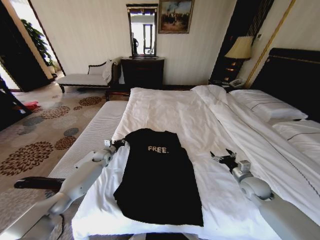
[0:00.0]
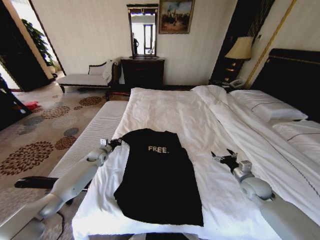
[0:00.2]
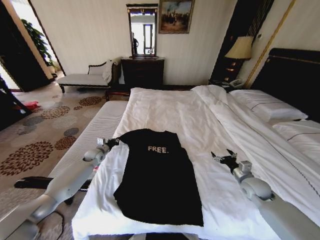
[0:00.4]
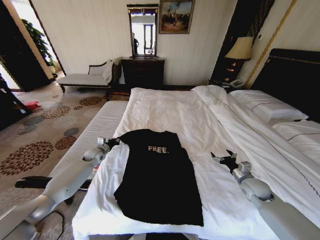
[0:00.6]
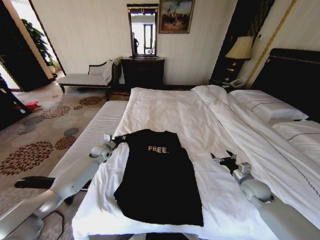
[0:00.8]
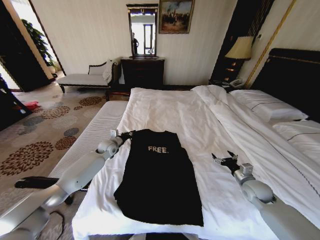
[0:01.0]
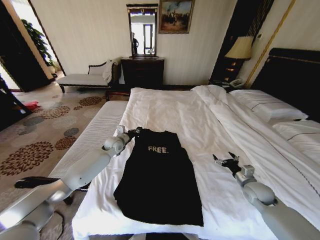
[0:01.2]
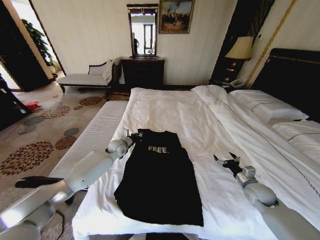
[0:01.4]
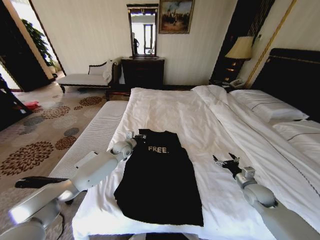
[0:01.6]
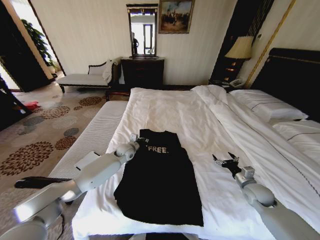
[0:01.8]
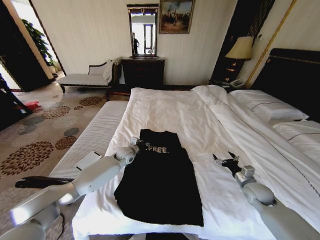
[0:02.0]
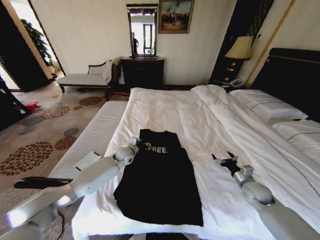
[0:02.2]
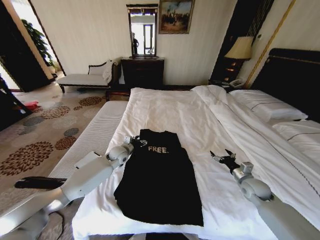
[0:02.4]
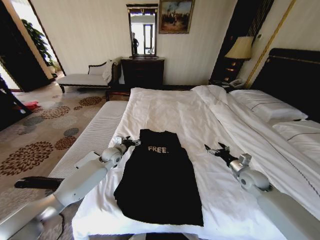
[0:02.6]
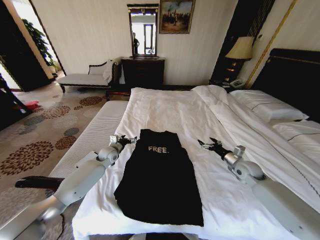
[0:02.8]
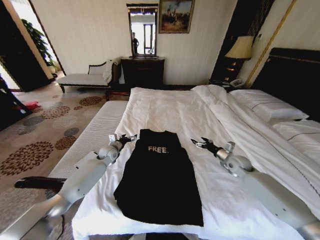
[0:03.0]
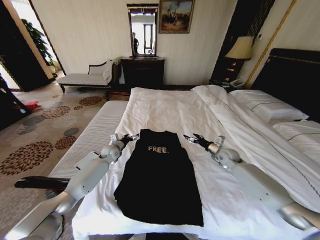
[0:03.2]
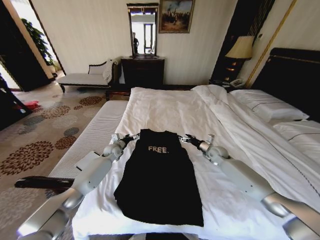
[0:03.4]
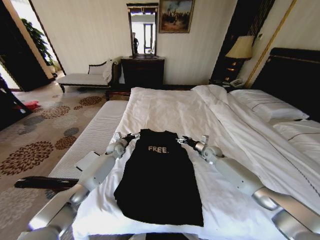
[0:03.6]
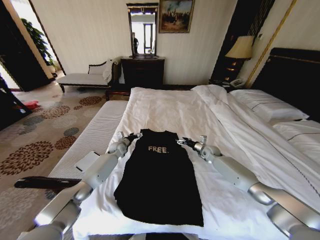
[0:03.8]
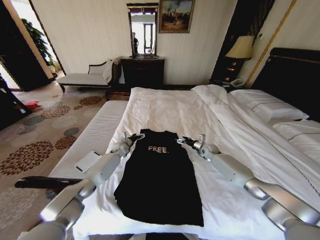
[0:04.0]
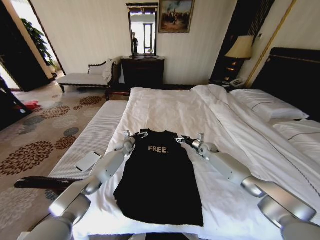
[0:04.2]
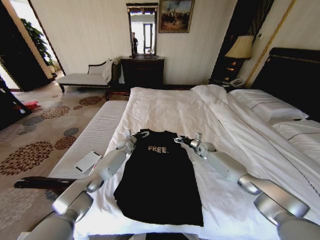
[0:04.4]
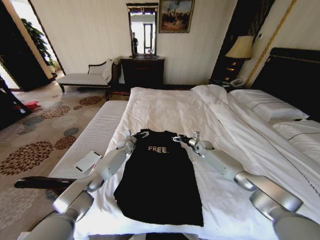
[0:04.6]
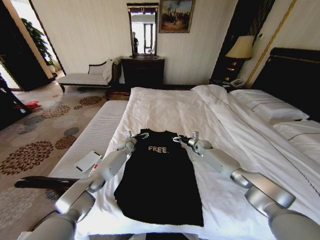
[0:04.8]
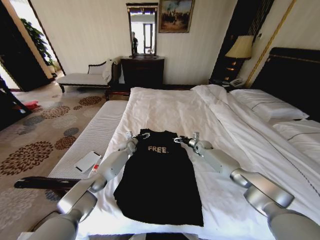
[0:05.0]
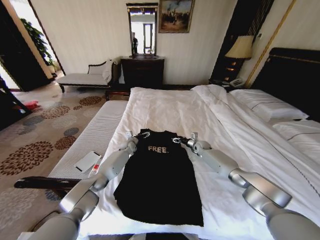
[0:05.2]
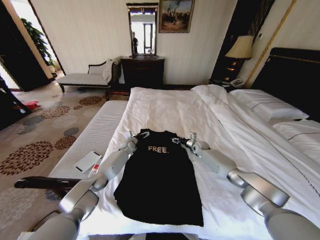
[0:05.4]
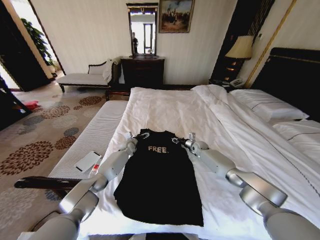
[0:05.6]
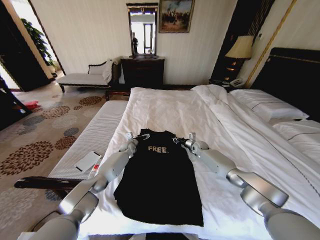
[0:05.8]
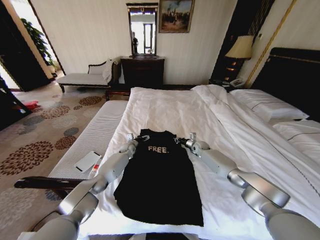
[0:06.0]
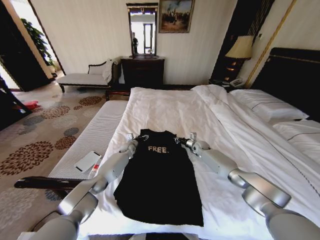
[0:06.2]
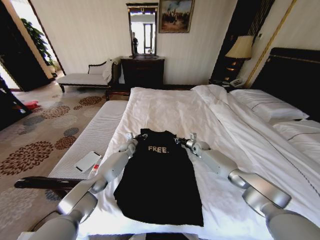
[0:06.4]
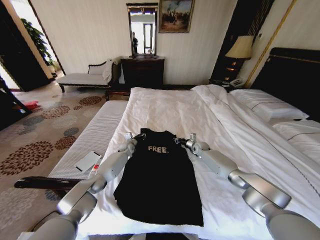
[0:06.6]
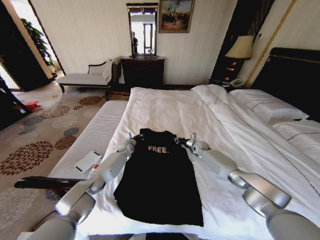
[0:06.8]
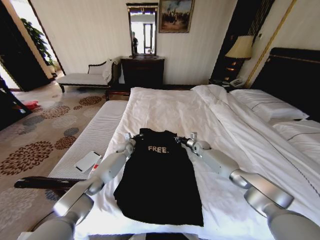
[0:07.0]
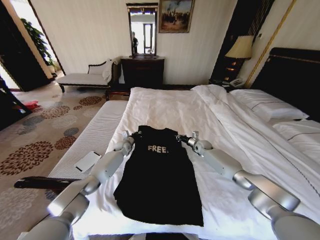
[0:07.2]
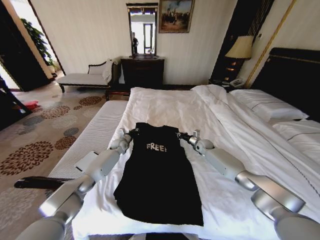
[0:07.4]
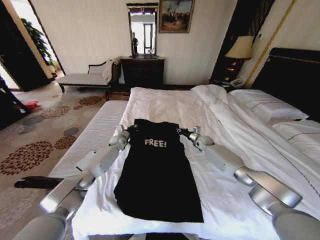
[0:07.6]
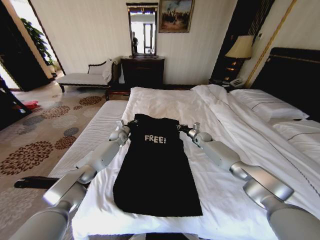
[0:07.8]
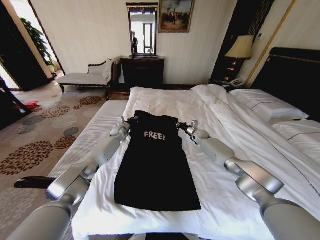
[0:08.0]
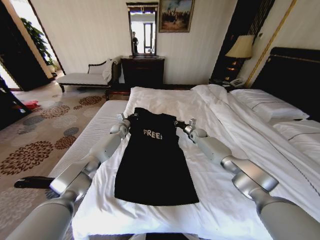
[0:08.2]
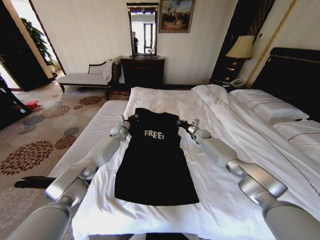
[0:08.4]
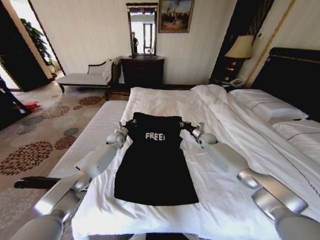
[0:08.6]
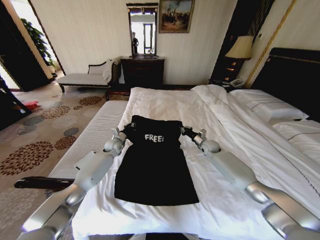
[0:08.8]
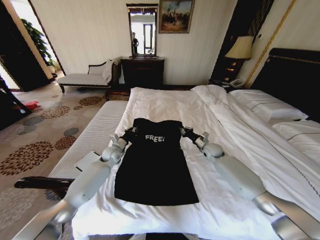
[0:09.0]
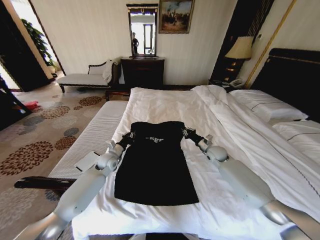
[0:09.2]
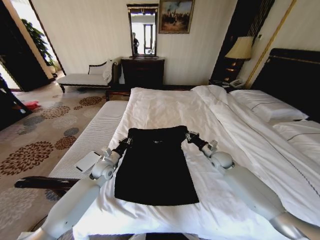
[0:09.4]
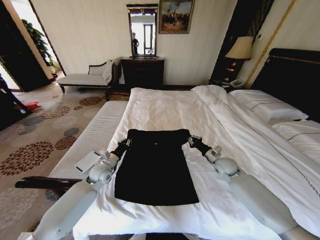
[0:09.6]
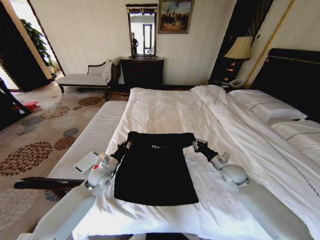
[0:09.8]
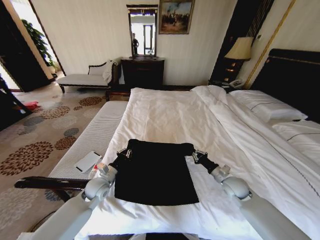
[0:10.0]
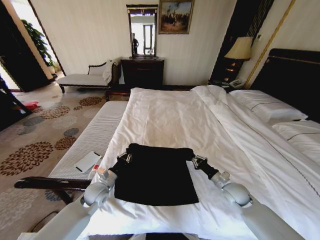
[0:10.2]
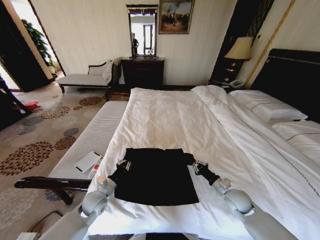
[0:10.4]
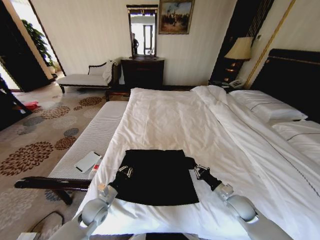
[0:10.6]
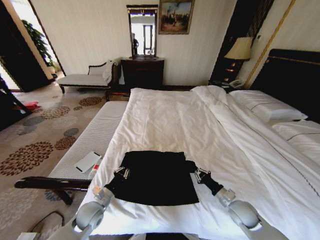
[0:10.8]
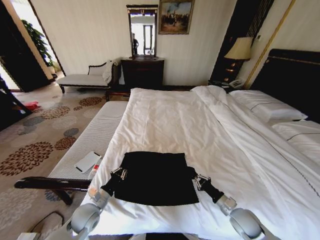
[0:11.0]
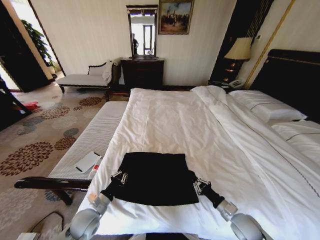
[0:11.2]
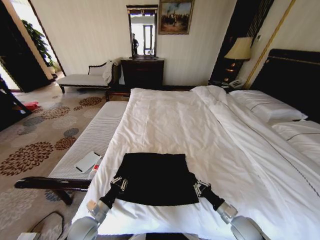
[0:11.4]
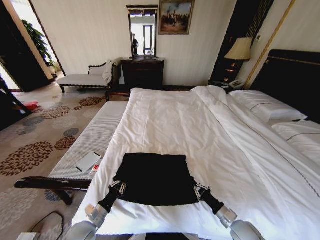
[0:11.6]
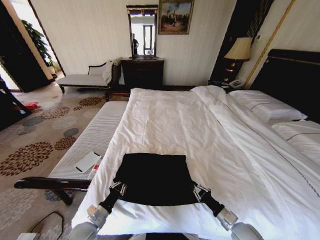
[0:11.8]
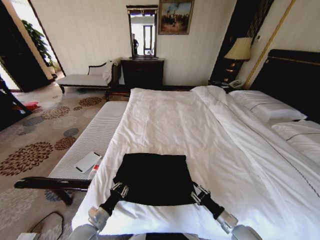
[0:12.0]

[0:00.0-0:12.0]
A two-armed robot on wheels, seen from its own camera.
Task of the whole recording: Fold the clothes on the bed.
0:00.0 to 0:01.6: The left gripper heads to the right and upward, covering roughly 15 cm.
0:01.6 to 0:03.0: The left gripper moves to the left, roughly 10 cm, and opens its fingers. Meanwhile the right gripper travels forward by about 10 cm.
0:03.0 to 0:04.4: The left gripper is displaced forward and to the right by approximately 10 cm; the right gripper travels forward and to the left by approximately 15 cm.
0:04.4 to 0:06.0: The right gripper closes.
0:06.0 to 0:07.6: The left gripper moves upward and to the left, approximately 10 cm, and closes.
0:07.6 to 0:09.0: The two grippers go some 10 cm backward.
0:09.0 to 0:10.4: Both grippers travel together backward, roughly 25 cm.
0:10.4 to 0:12.0: The left gripper moves backward, roughly 10 cm. Meanwhile the right gripper travels backward and downward by approximately 15 cm.

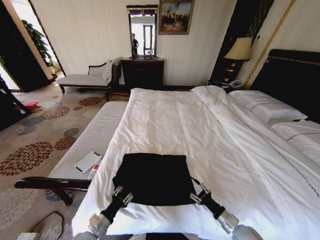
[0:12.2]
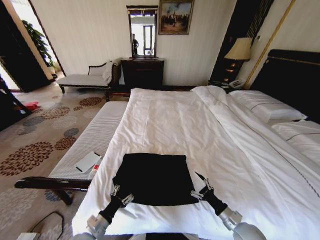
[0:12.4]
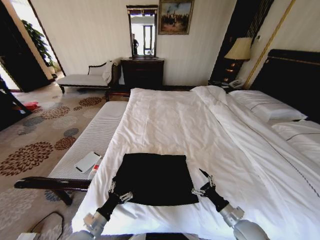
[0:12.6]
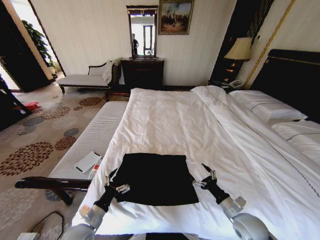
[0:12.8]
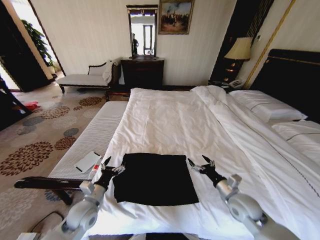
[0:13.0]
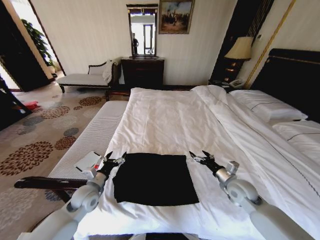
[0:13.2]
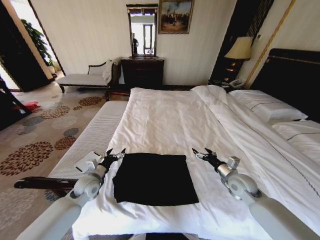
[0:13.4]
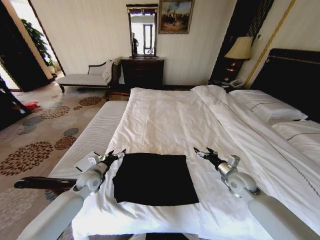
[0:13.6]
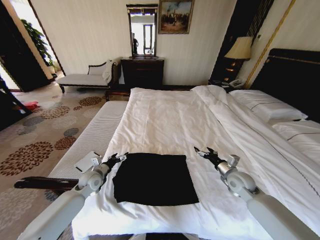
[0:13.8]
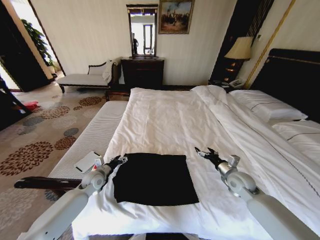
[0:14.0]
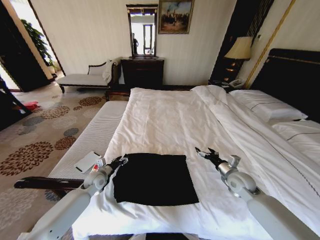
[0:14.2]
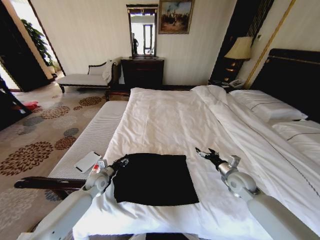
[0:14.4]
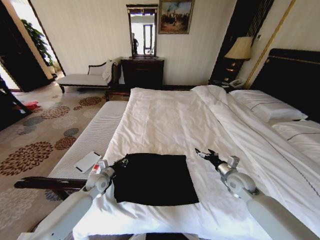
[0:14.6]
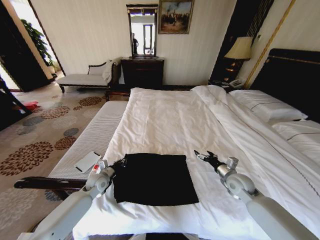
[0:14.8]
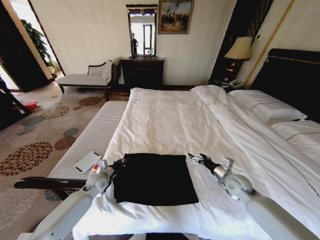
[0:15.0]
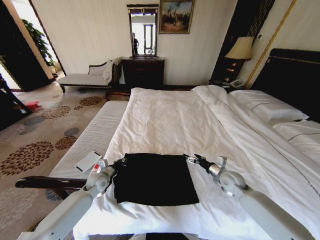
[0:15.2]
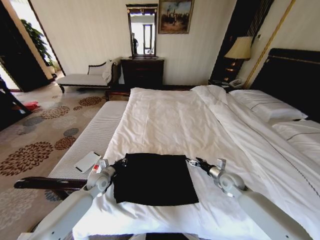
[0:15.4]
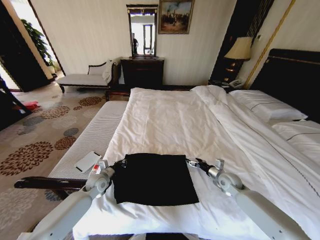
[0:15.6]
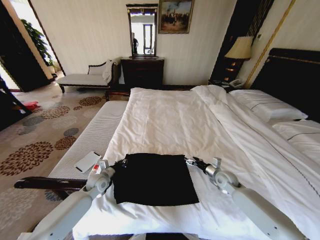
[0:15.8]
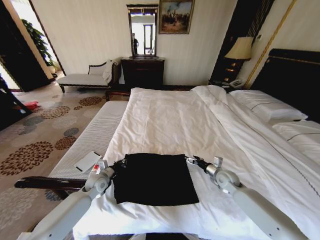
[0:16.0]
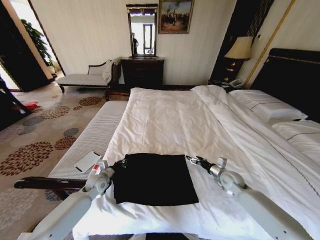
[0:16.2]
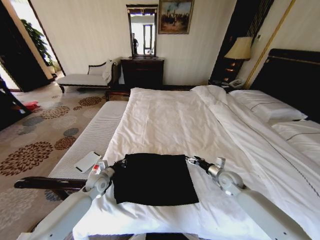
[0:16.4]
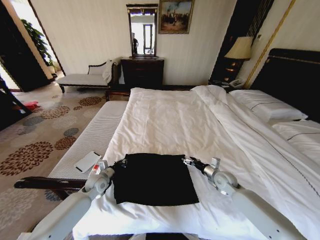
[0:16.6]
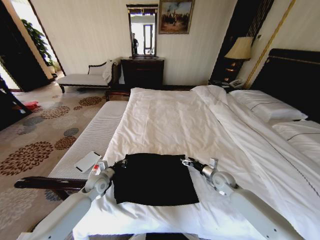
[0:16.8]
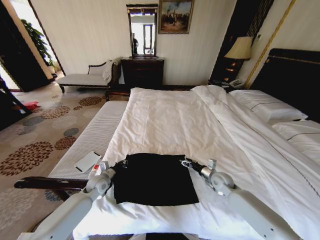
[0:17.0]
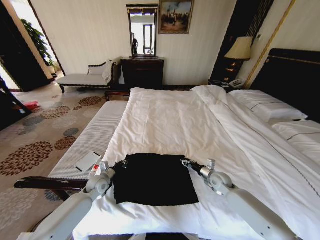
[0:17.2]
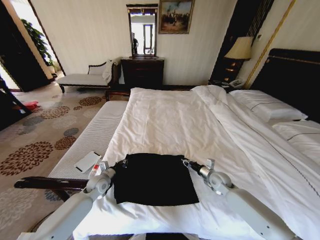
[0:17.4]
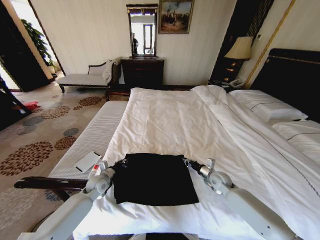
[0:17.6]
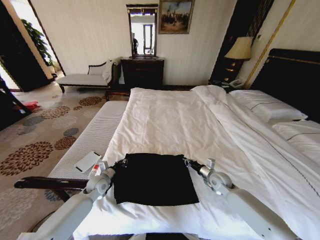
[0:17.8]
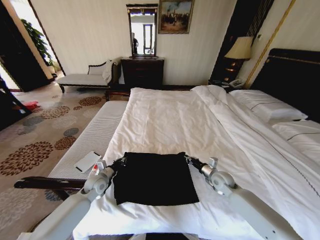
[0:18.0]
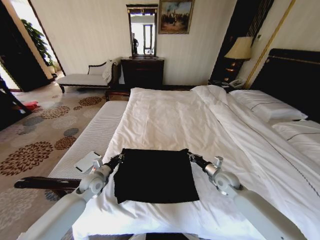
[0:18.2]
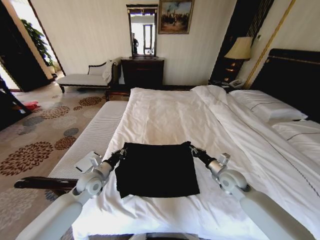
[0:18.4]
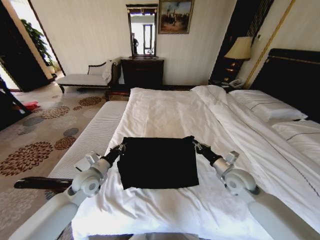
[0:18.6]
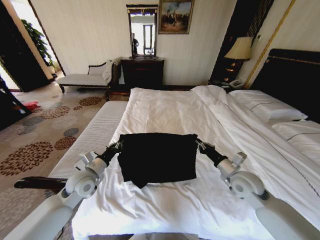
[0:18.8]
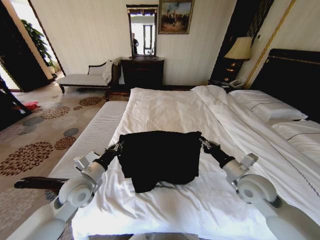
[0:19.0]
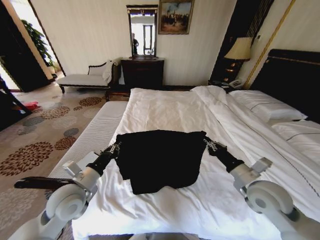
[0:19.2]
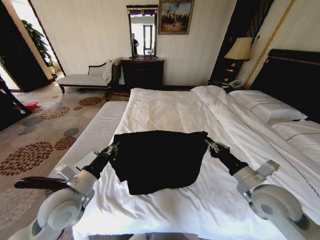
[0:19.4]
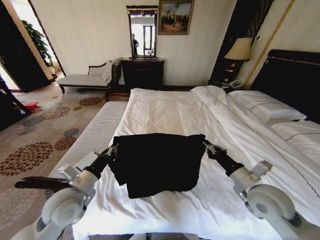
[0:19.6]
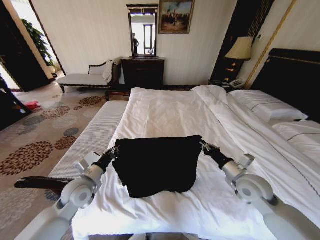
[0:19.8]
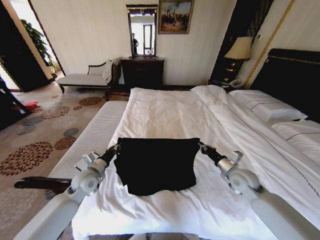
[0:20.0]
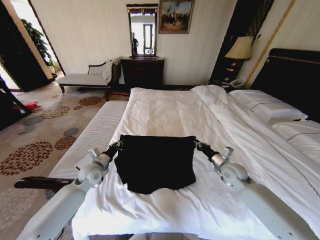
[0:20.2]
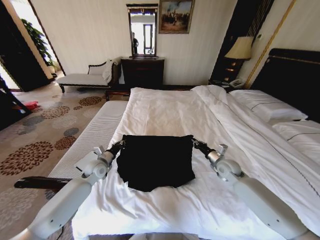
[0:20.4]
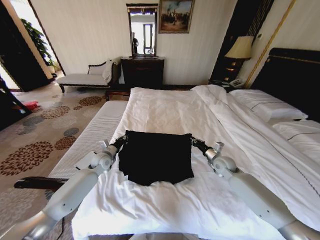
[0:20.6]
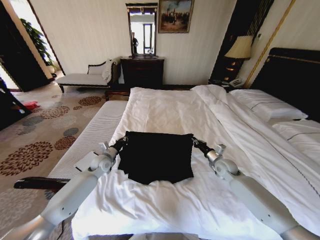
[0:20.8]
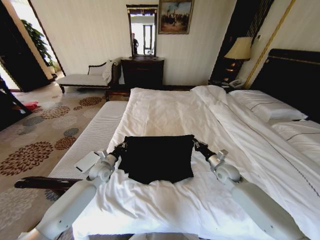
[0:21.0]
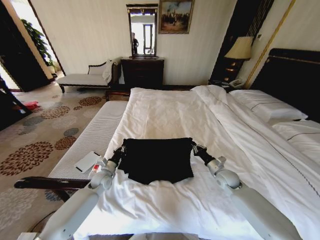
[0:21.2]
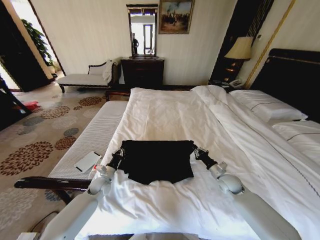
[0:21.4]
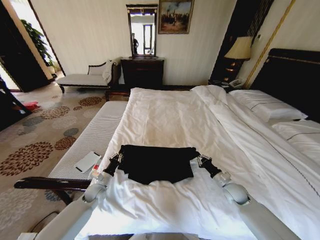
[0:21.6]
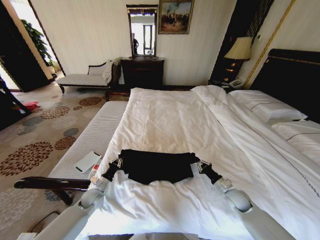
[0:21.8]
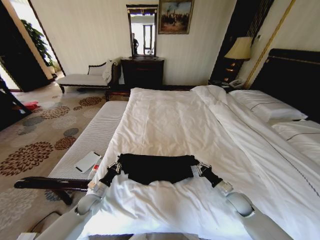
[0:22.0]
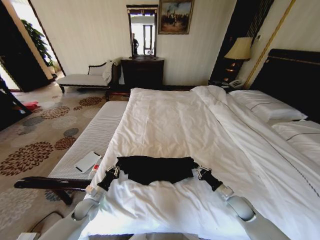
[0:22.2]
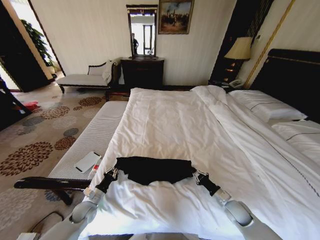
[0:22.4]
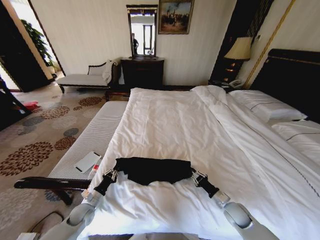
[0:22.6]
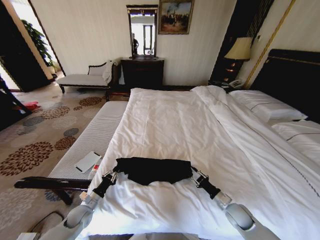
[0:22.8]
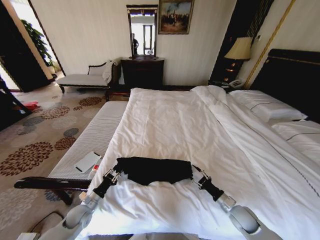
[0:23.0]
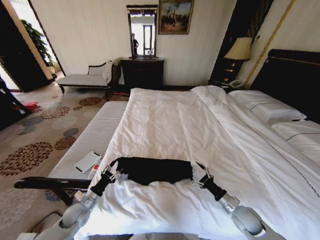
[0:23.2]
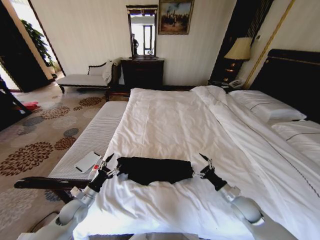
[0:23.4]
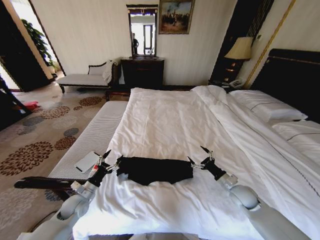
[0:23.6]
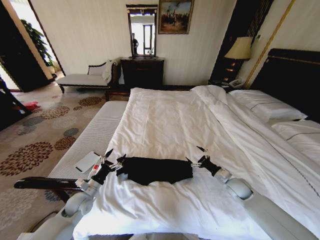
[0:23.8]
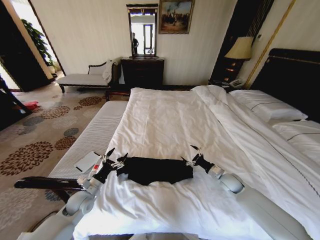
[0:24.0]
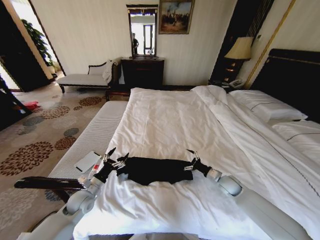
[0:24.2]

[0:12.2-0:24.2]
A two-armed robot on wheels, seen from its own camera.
Task of the whole recording: Fold the clothes on the bed.
0:12.2 to 0:13.8: The right gripper moves forward and upward, some 20 cm, and opens. The left gripper heads forward, covering some 20 cm, and opens up.
0:13.8 to 0:15.2: The left gripper closes.
0:15.2 to 0:16.6: The grippers stay close to where they were, moving slightly.
0:16.6 to 0:18.2: The right gripper closes its fingers.
0:18.2 to 0:19.8: Both grippers move upward and backward, some 10 cm.
0:19.8 to 0:21.2: Both grippers travel together downward and forward, some 15 cm.
0:21.2 to 0:22.6: The right gripper moves backward and downward, roughly 15 cm. Meanwhile the left gripper heads backward, to the left and downward, covering about 15 cm.
0:22.6 to 0:24.2: The left gripper is displaced upward by about 10 cm, and opens up. The right gripper goes about 10 cm forward, and opens up.
